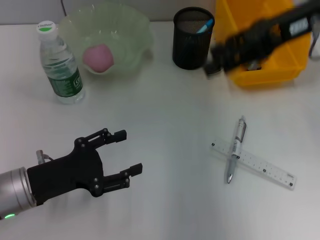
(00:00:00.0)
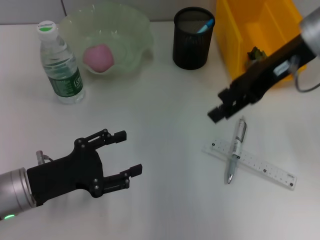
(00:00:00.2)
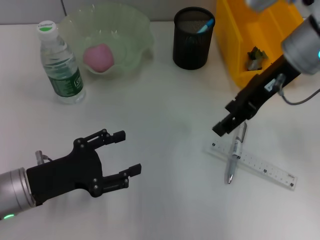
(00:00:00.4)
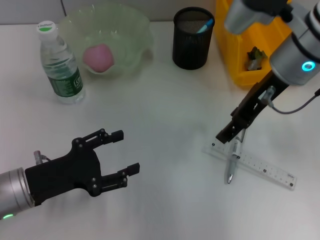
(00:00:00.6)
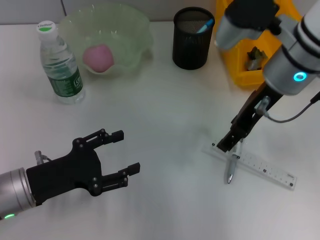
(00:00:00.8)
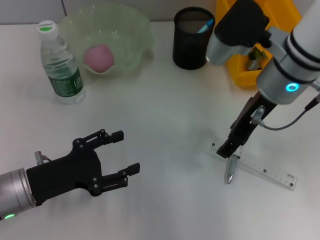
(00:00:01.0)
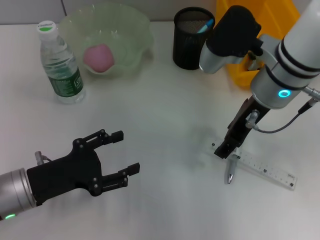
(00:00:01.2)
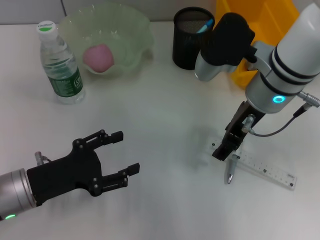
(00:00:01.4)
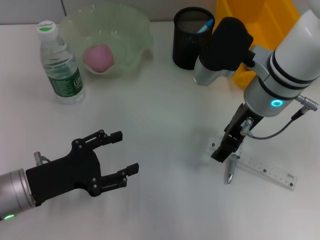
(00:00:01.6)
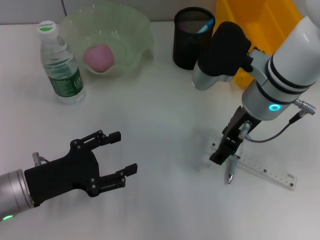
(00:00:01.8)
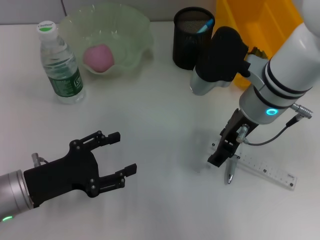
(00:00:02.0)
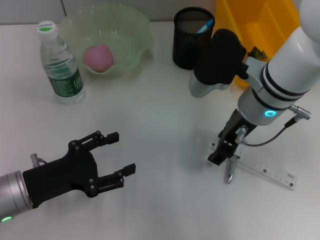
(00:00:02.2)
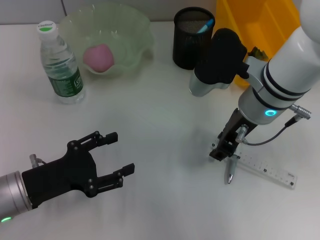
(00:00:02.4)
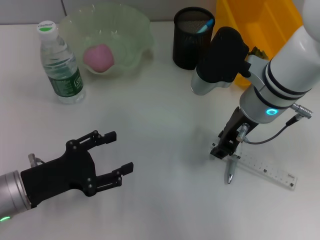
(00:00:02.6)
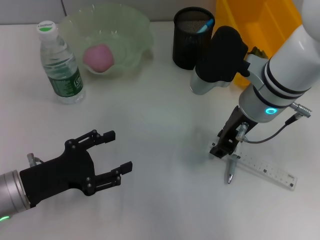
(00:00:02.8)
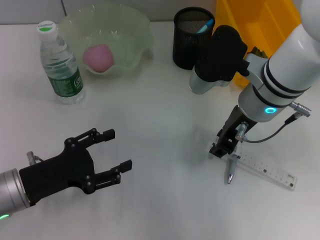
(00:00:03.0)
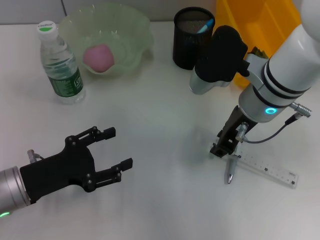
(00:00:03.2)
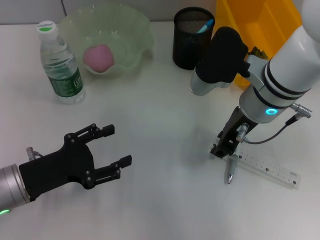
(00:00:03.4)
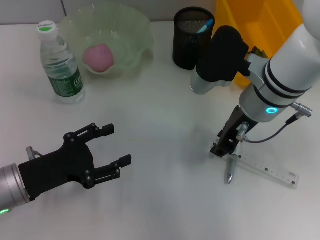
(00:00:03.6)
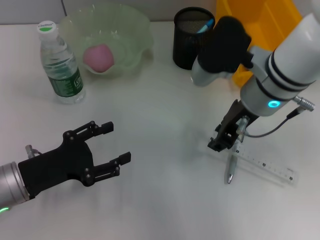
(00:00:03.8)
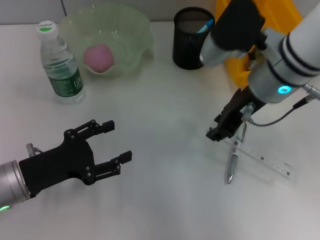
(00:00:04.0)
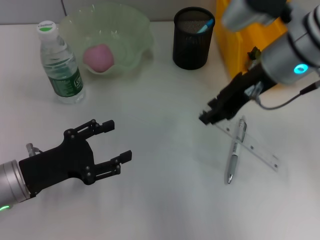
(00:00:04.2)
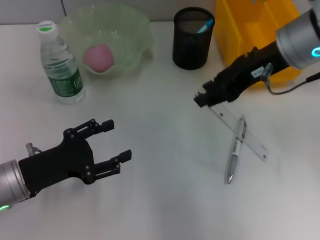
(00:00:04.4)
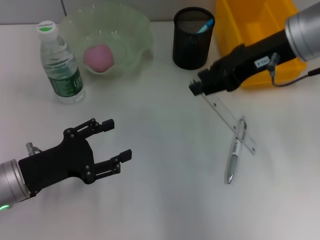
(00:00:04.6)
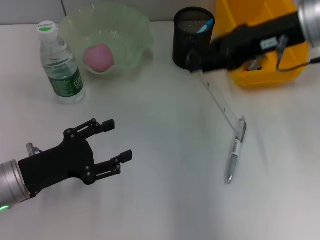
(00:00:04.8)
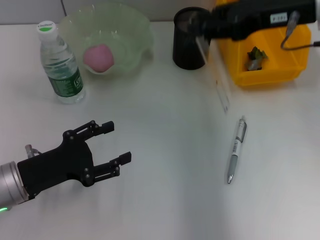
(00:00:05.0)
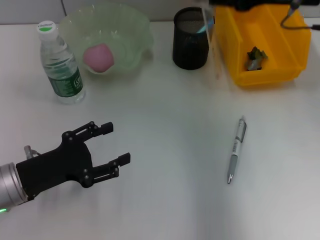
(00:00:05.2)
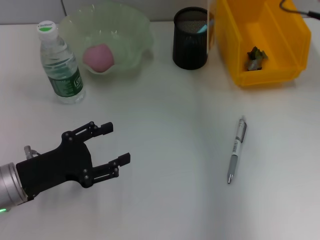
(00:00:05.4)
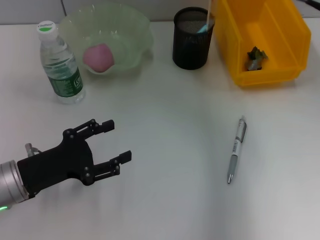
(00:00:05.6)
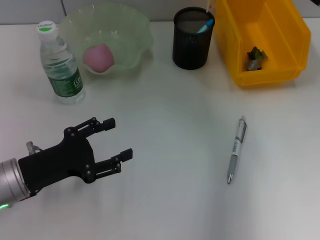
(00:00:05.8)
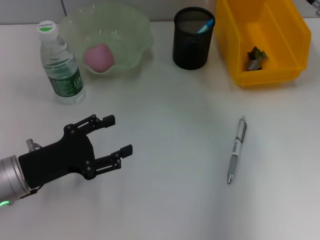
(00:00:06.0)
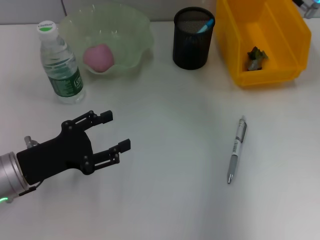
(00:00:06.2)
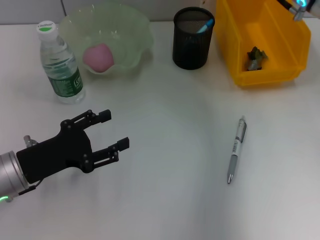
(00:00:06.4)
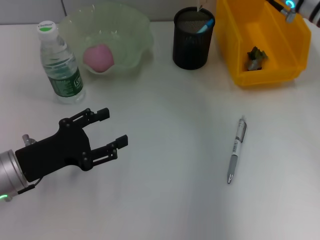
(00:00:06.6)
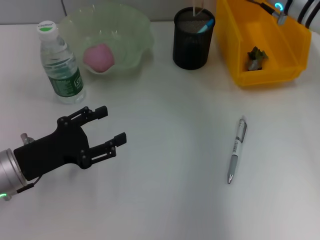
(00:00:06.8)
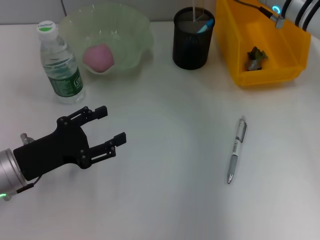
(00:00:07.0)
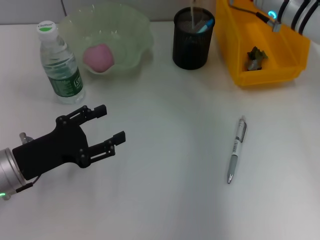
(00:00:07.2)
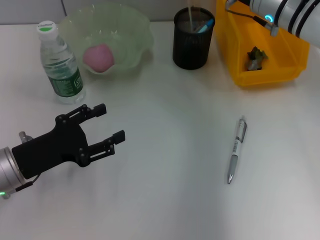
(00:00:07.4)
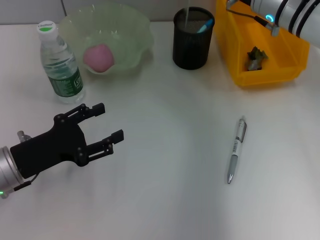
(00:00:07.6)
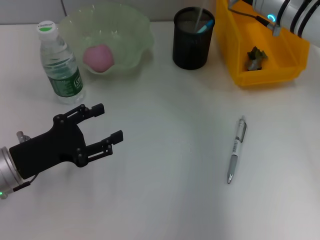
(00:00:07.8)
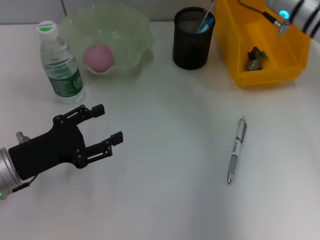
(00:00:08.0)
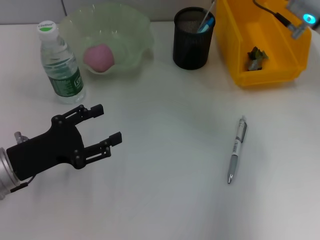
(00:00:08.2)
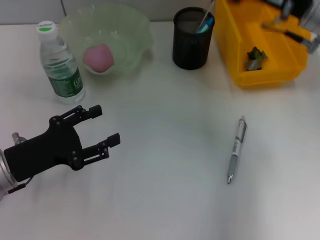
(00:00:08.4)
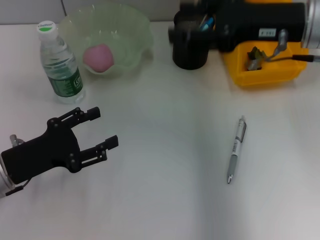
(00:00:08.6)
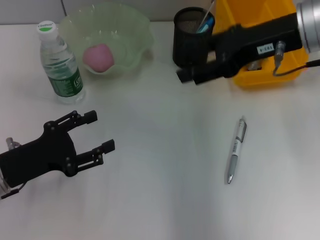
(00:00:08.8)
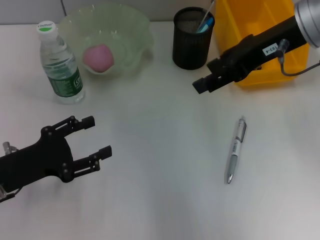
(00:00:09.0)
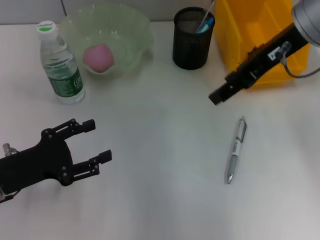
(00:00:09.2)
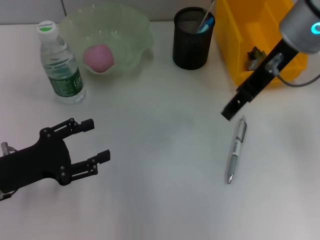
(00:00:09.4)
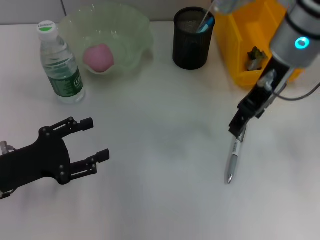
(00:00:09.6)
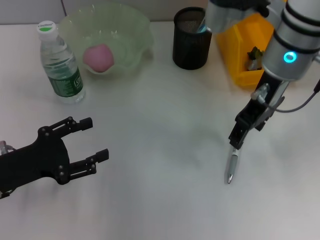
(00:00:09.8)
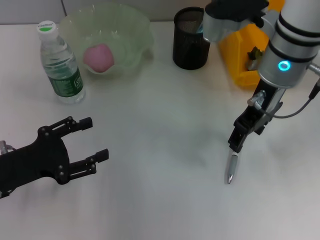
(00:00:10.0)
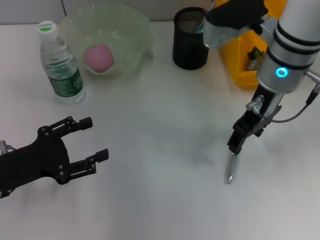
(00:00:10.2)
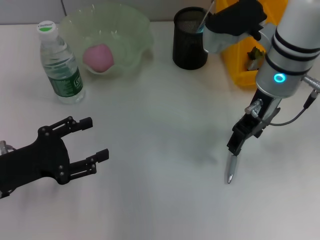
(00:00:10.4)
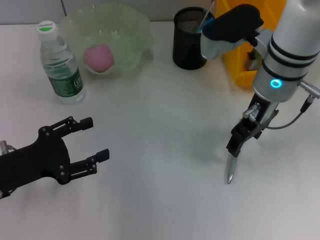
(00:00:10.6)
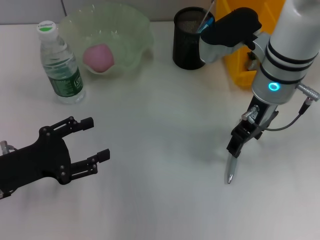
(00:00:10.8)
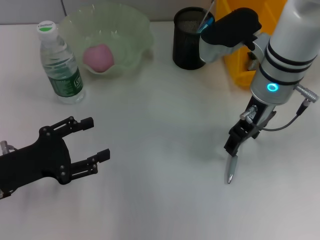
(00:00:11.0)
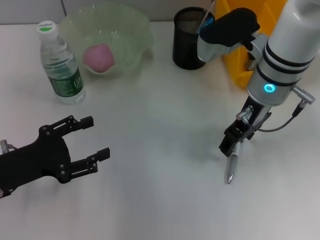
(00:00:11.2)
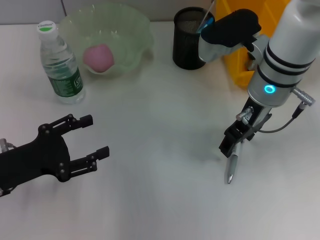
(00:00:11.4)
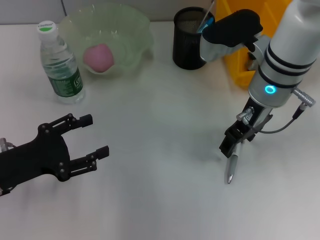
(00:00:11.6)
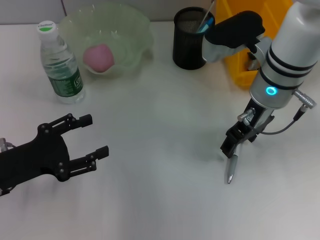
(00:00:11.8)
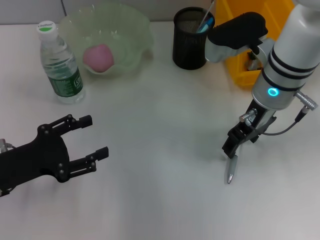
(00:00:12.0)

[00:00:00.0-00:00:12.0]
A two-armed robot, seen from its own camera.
Step, 00:00:00.0 to 00:00:03.0: Grab the ruler with the right hand.
Step, 00:00:03.2 to 00:00:08.0: Place the ruler into the pen holder with the right hand.
00:00:00.0 to 00:00:01.6: The right gripper is displaced downward and to the left by some 15 cm.
00:00:01.6 to 00:00:03.0: The right gripper closes up.
00:00:03.0 to 00:00:04.4: The right gripper is displaced upward and to the right by about 10 cm.
00:00:04.4 to 00:00:06.0: The right gripper is displaced to the right by roughly 5 cm.
00:00:06.0 to 00:00:07.6: The right gripper goes approximately 5 cm to the left.
00:00:07.6 to 00:00:09.0: The right gripper goes roughly 10 cm upward and backward, and opens.
00:00:09.0 to 00:00:10.4: The right gripper travels downward by approximately 10 cm.
00:00:10.4 to 00:00:12.0: The grippers stay close to where they were, moving slightly.

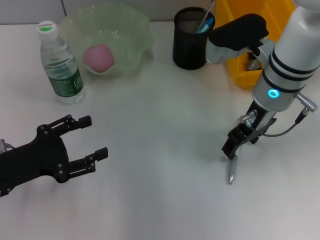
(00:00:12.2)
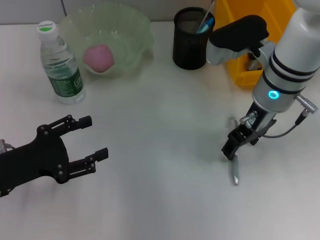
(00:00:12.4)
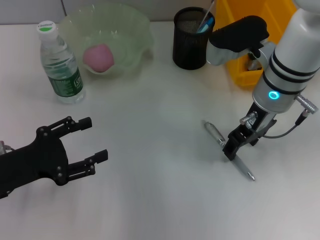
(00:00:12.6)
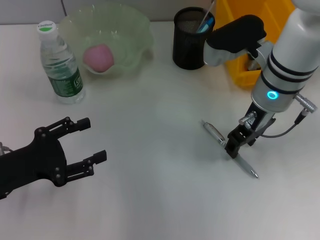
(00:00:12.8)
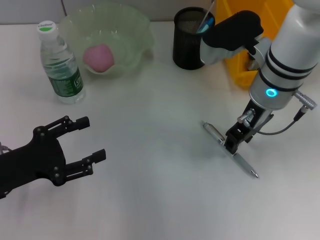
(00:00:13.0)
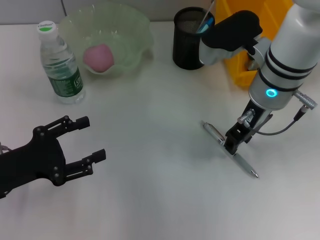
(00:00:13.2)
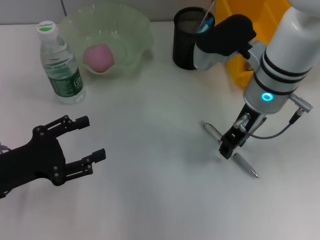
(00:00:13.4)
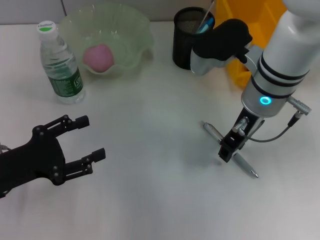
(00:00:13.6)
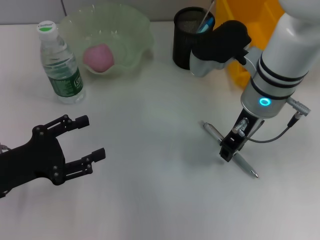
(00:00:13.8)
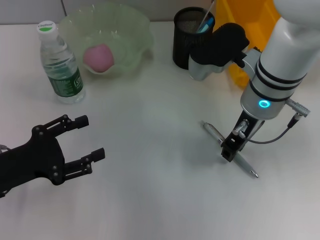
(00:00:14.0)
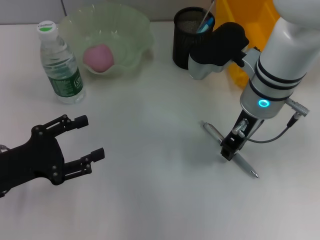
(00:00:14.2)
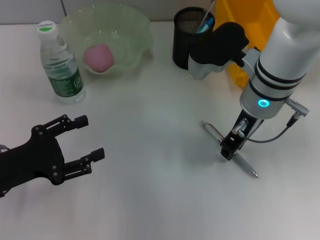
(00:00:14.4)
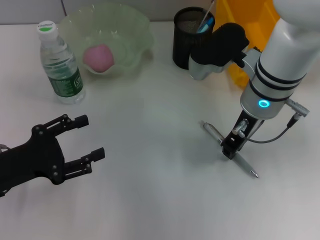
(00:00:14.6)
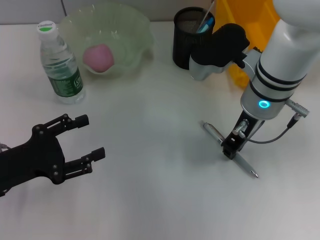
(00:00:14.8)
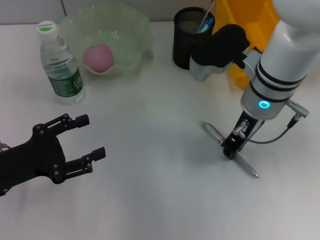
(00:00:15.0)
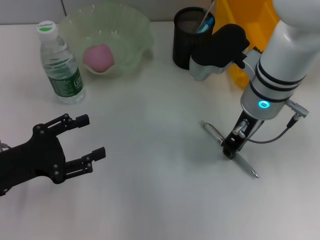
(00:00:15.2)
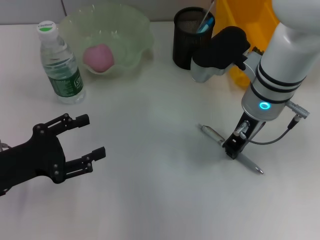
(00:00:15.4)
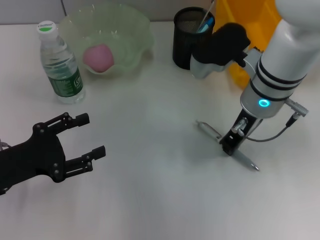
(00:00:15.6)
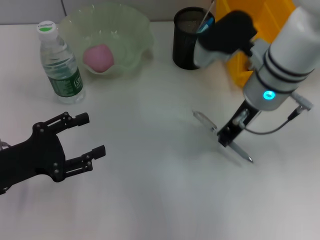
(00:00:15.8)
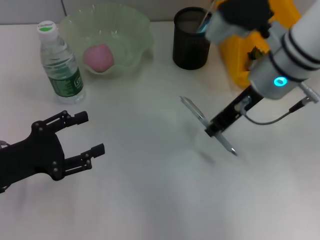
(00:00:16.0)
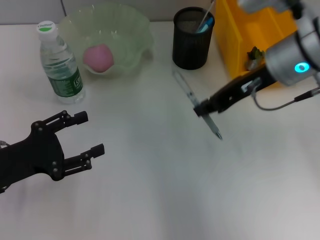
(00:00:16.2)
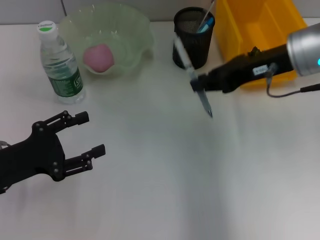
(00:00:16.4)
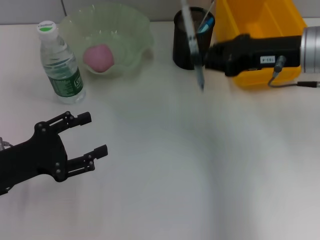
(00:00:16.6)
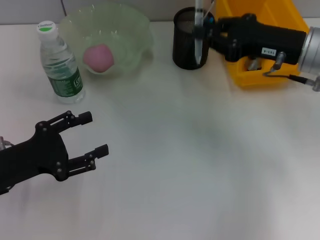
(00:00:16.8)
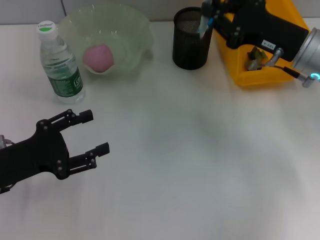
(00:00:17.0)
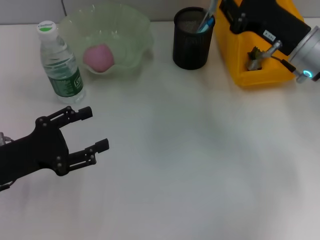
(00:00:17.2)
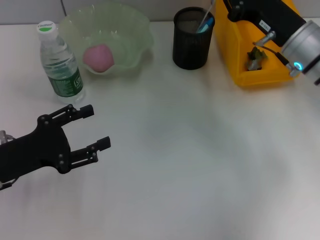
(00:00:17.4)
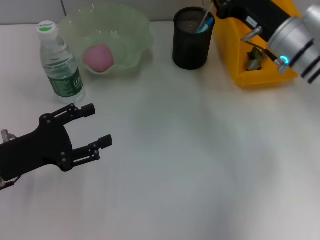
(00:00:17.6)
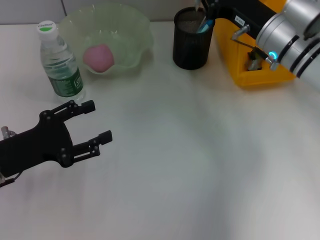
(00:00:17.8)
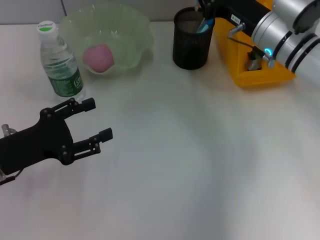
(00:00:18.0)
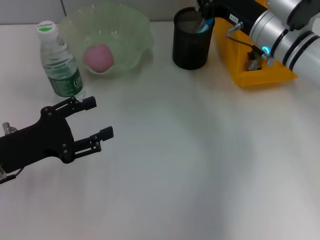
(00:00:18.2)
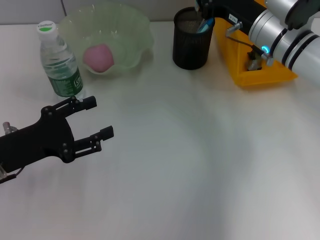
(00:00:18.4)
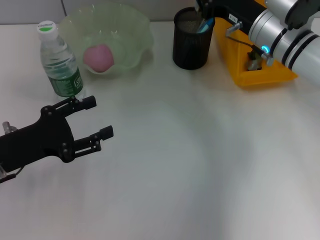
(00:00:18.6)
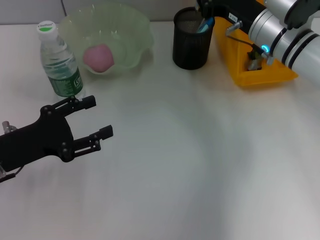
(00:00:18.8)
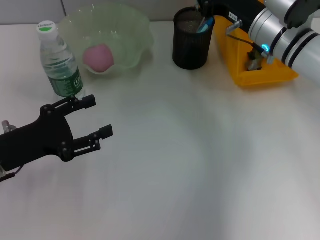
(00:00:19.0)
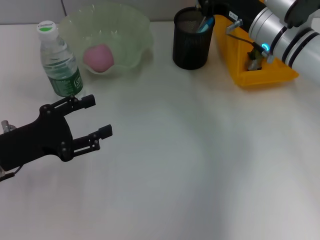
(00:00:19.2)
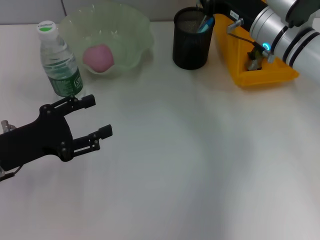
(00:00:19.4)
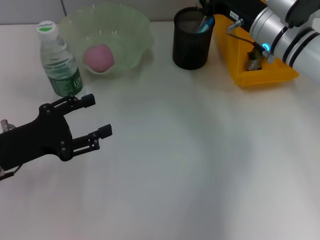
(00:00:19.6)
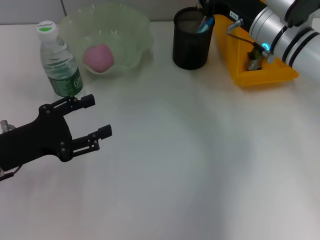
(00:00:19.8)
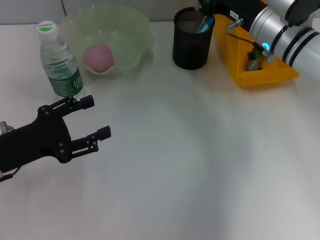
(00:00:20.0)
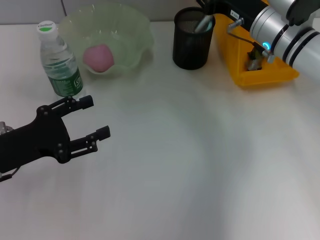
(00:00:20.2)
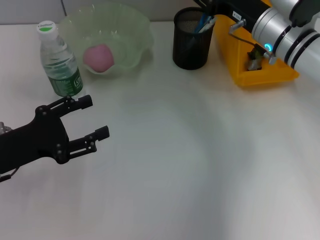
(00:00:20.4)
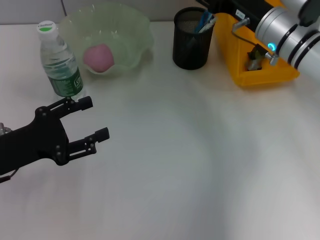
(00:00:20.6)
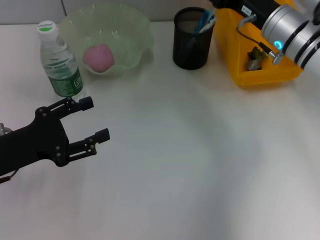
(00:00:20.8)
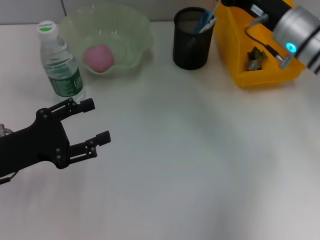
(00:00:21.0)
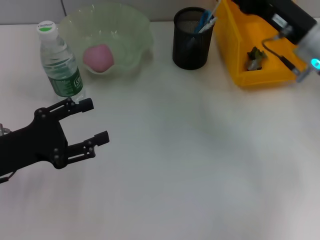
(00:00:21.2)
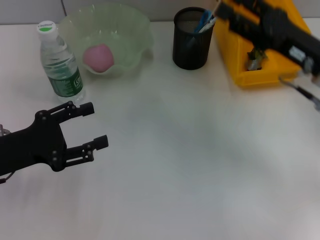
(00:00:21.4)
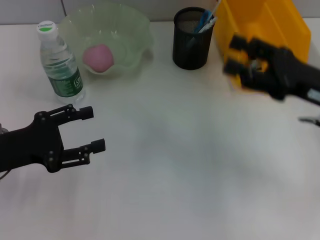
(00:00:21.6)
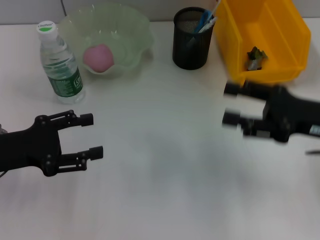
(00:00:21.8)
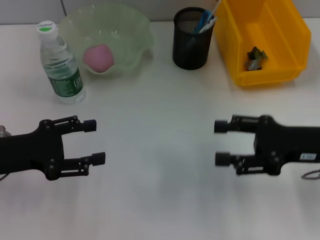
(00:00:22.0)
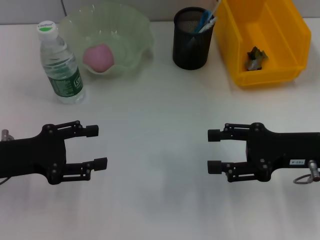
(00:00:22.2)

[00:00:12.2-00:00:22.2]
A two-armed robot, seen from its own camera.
Step, 00:00:12.2 to 00:00:15.4: Grab the gray spring-action pen with the right hand.
Step, 00:00:15.6 to 00:00:20.4: Place the gray spring-action pen into the pen holder with the right hand.
00:00:12.2 to 00:00:13.6: The grippers move only a little.
00:00:13.6 to 00:00:15.0: Both grippers stay put.
00:00:15.0 to 00:00:16.4: The right gripper goes some 10 cm to the right and upward.
00:00:16.4 to 00:00:18.0: The right gripper goes roughly 10 cm downward and forward.
00:00:18.0 to 00:00:19.4: Both grippers stay about where they are.
00:00:19.4 to 00:00:20.8: The right gripper opens up.
00:00:20.8 to 00:00:22.2: The right gripper travels backward and to the right by roughly 15 cm.
